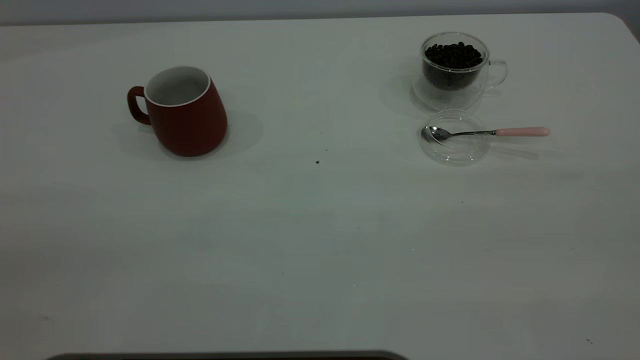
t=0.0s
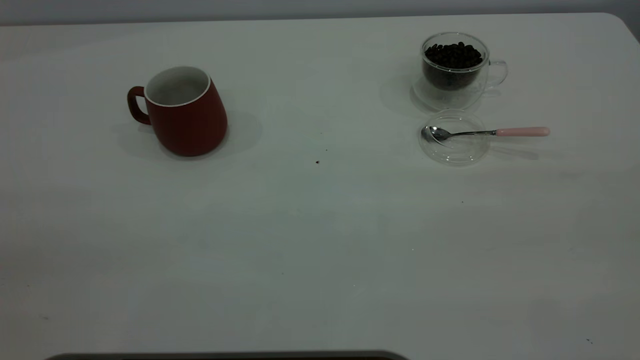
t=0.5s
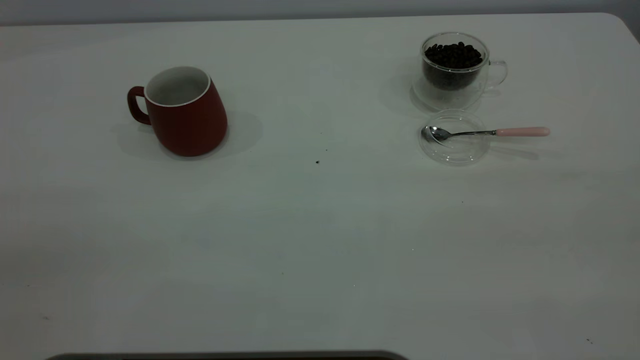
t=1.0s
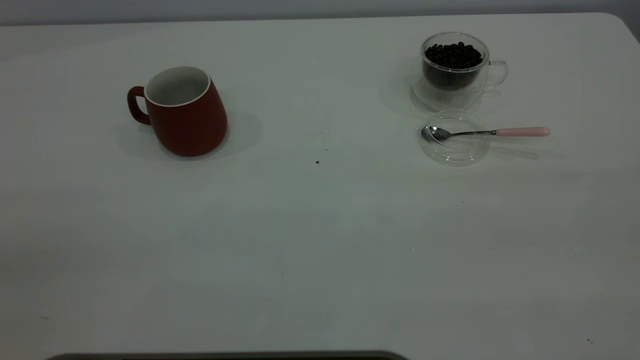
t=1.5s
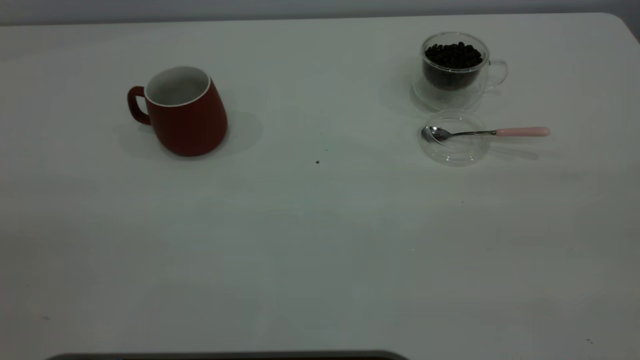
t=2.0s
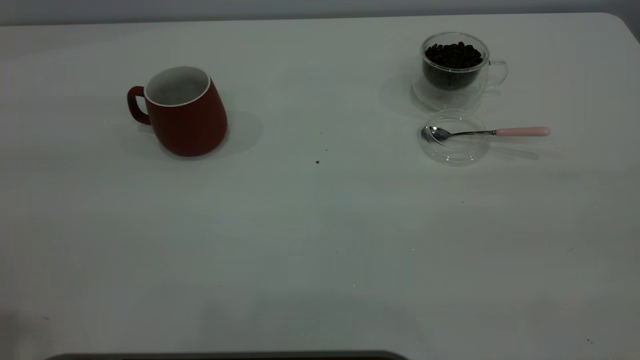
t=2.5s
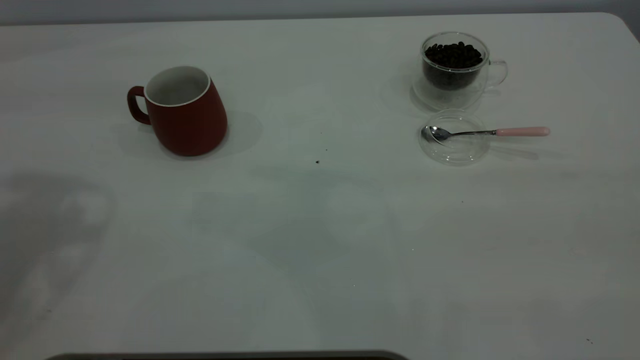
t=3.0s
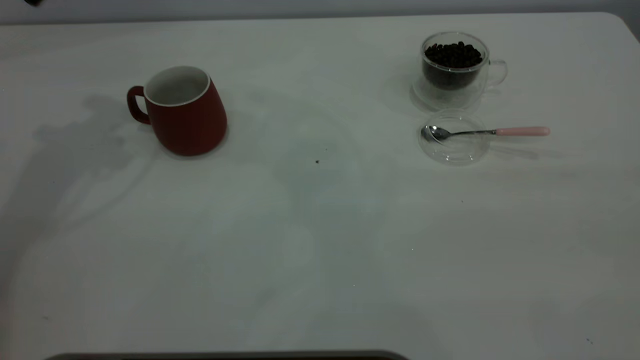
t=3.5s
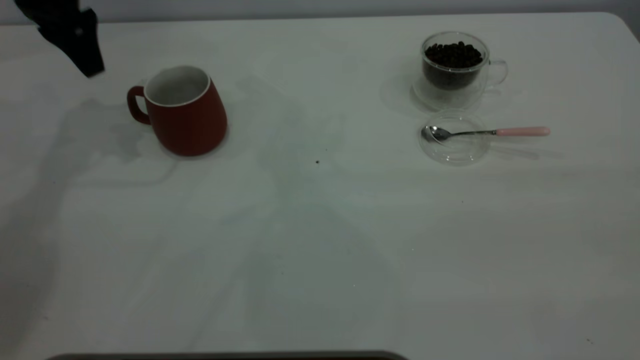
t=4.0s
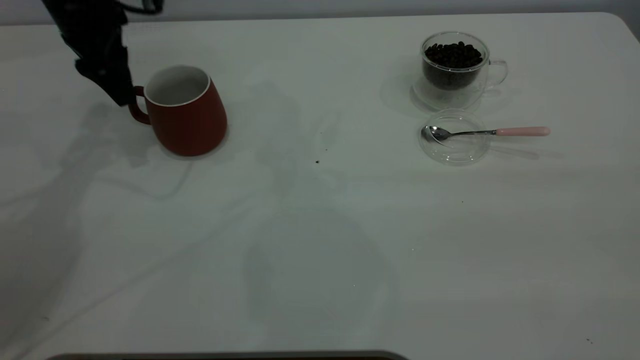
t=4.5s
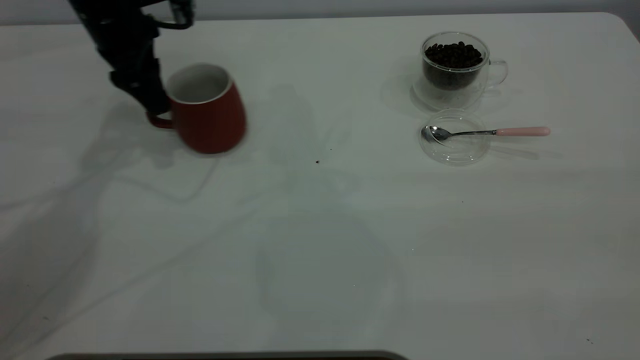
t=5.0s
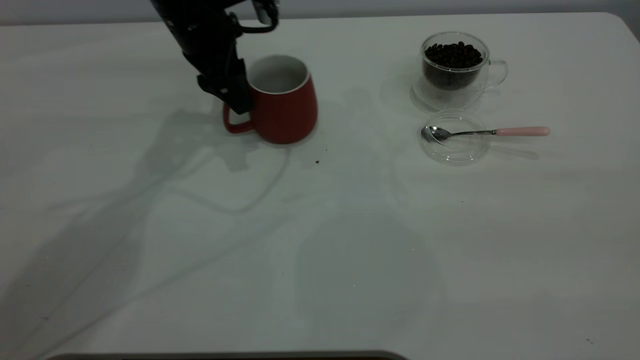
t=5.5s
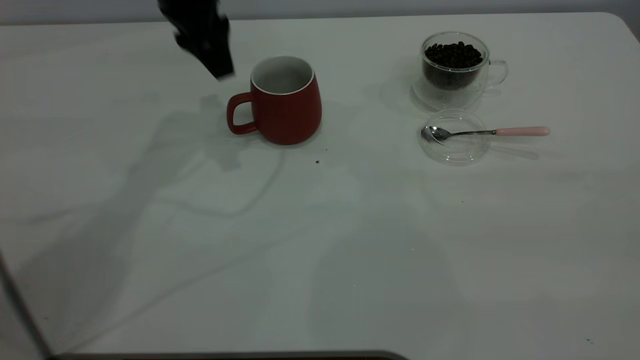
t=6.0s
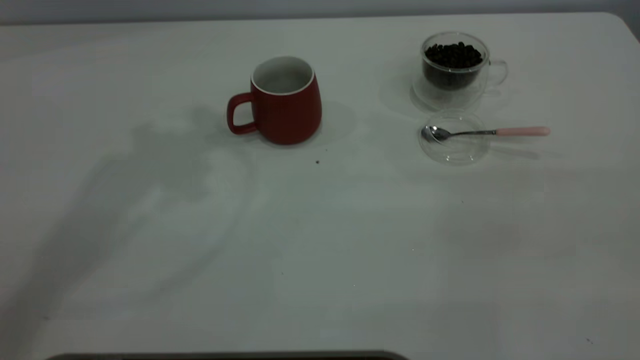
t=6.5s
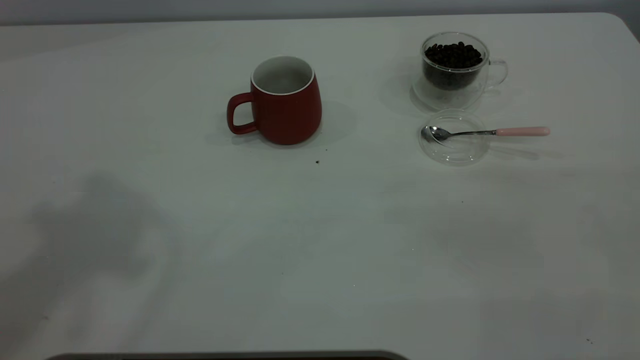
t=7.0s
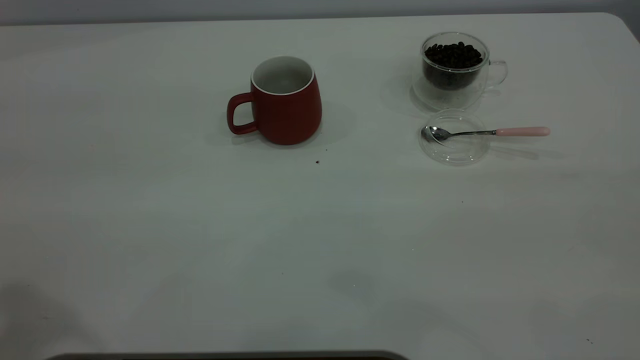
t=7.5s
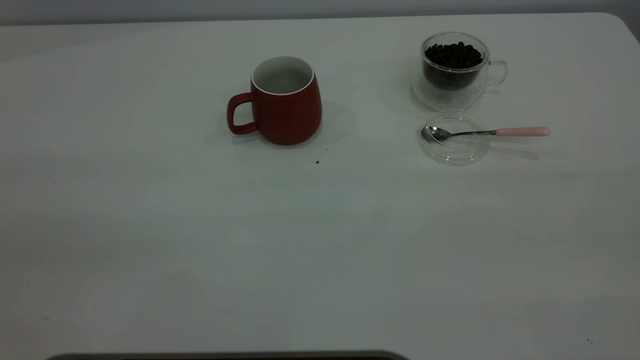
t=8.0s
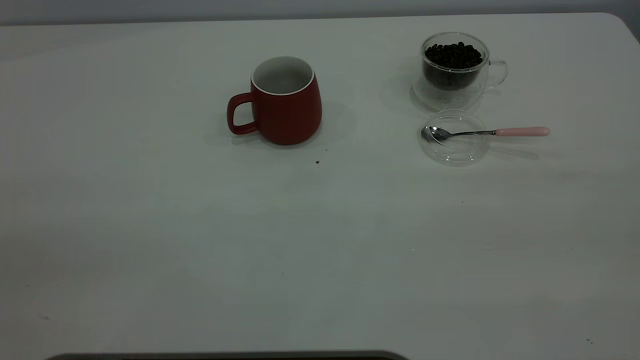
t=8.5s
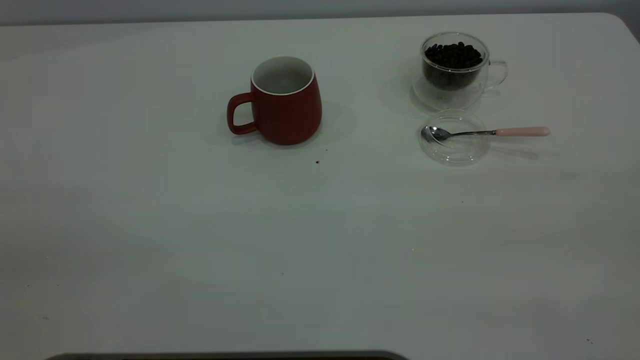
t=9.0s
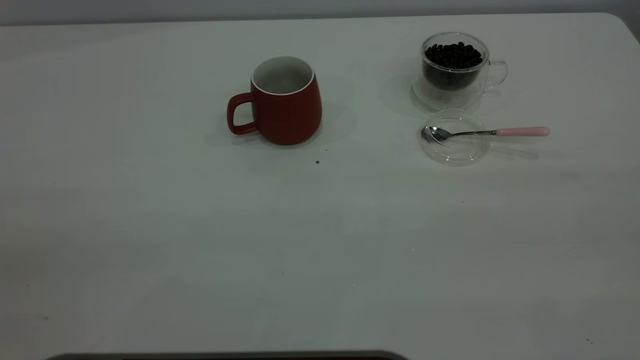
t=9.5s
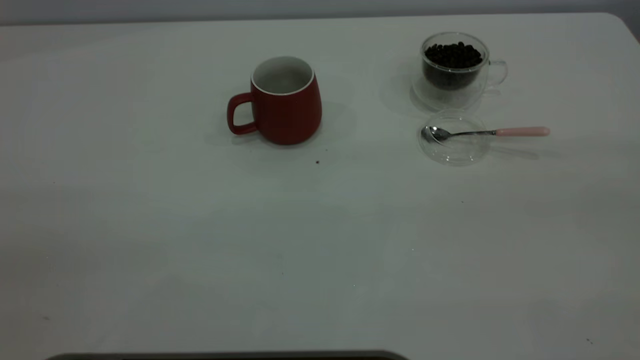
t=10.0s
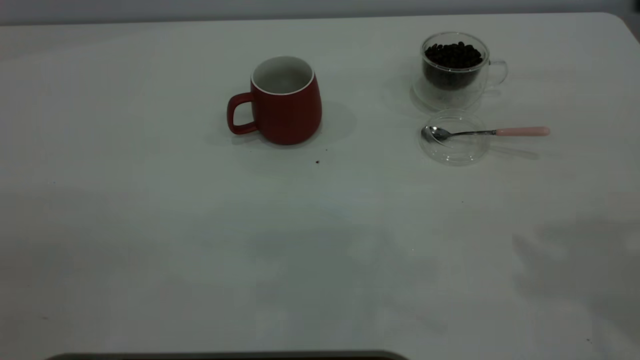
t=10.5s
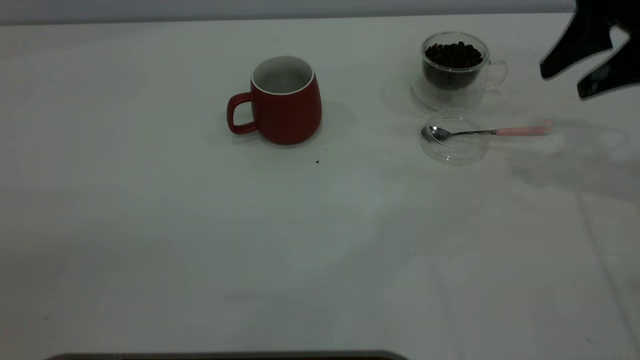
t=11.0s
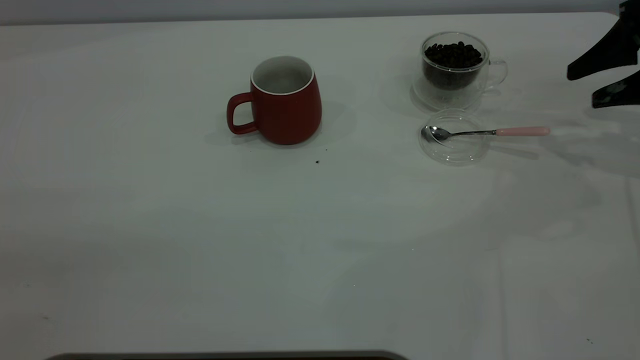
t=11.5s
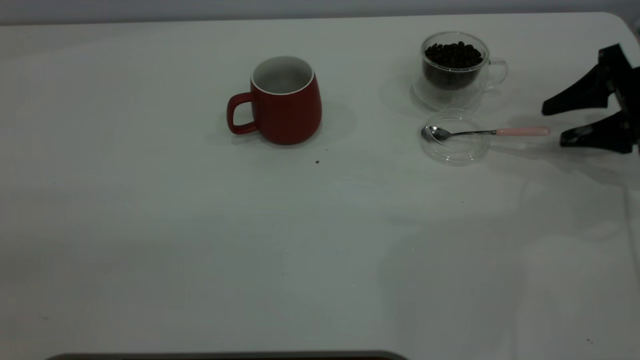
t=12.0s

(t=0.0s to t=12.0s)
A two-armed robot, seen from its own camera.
Task of the whole recording: the left gripper place the red cup in the center of the table, the right gripper take the pink spoon from the cup lid and scoop out the coffee beans from the coffee cup and put them into the red cup, the right gripper put the spoon back into the cup lid.
Step, t=0.0s - t=5.5s: Move the cup to the center of view.
t=2.0s - t=4.0s: The left gripper travels forward and downward by roughly 50 cm.
t=4.0s - t=6.0s: The left gripper heads to the right, covering roughly 15 cm.
t=6.0s - t=8.0s: The left gripper shifts some 40 cm backward.
t=10.0s - t=12.0s: The right gripper goes approximately 40 cm forward and downward.

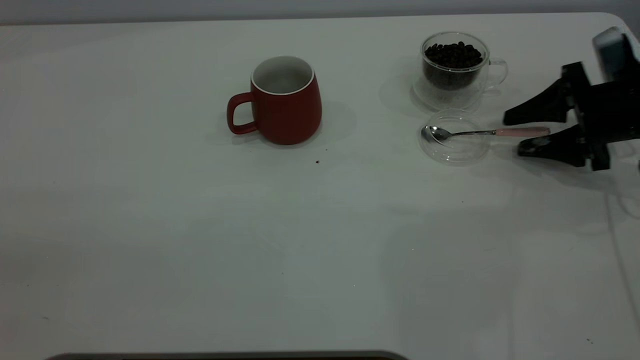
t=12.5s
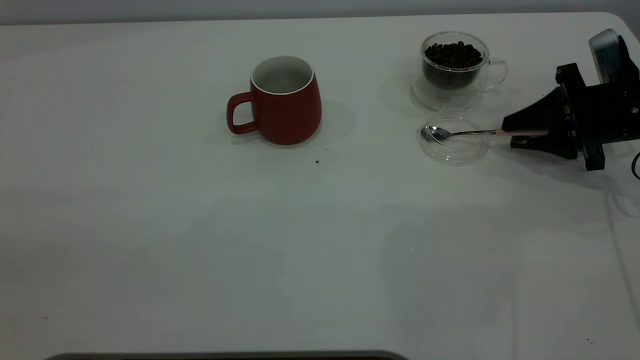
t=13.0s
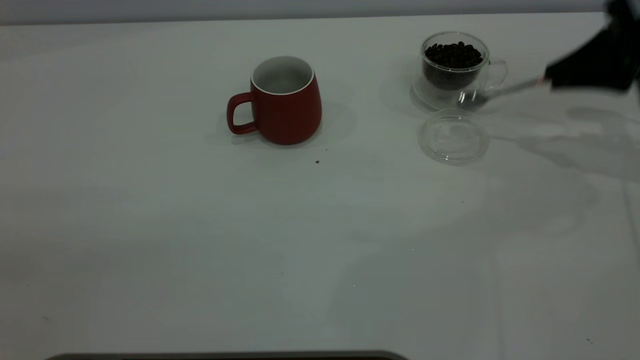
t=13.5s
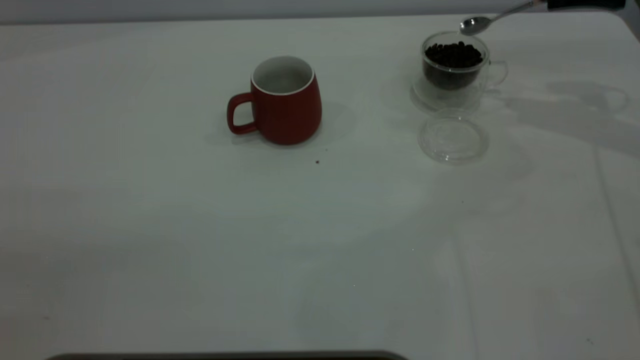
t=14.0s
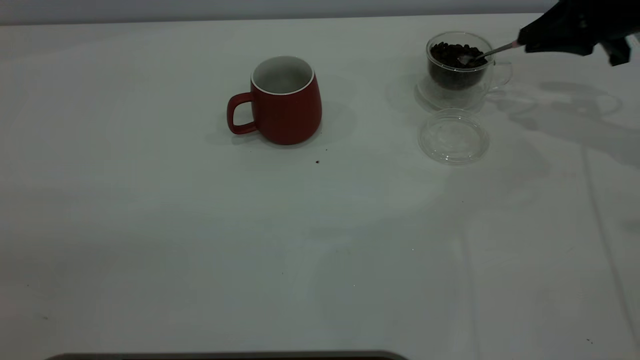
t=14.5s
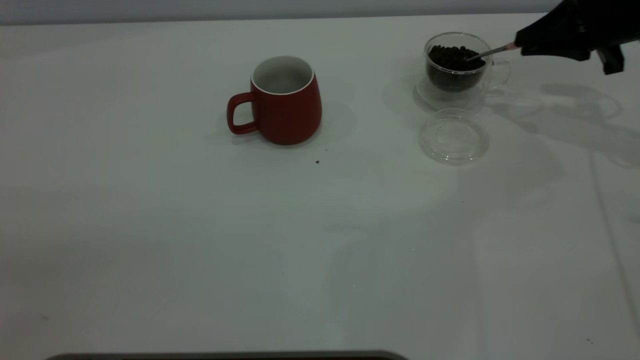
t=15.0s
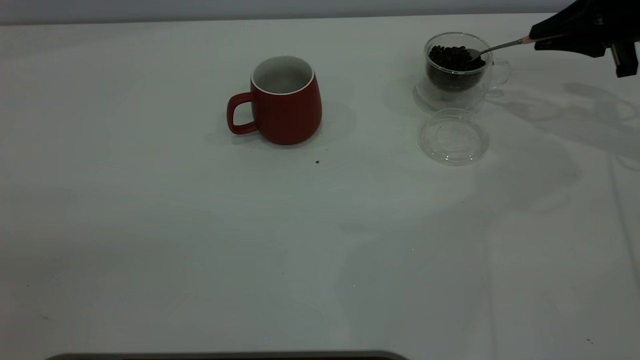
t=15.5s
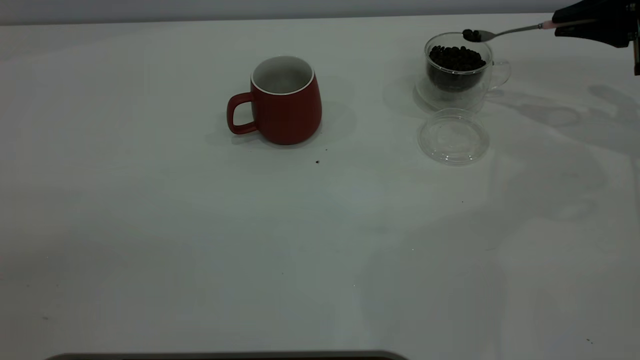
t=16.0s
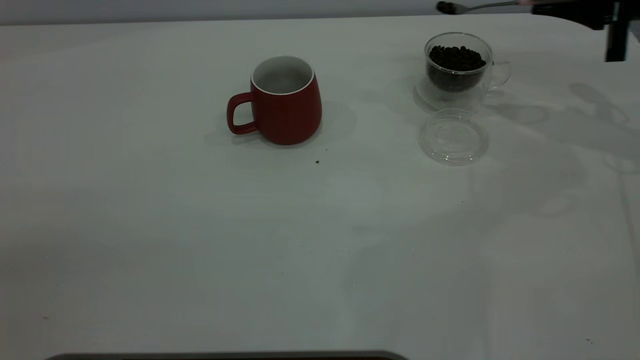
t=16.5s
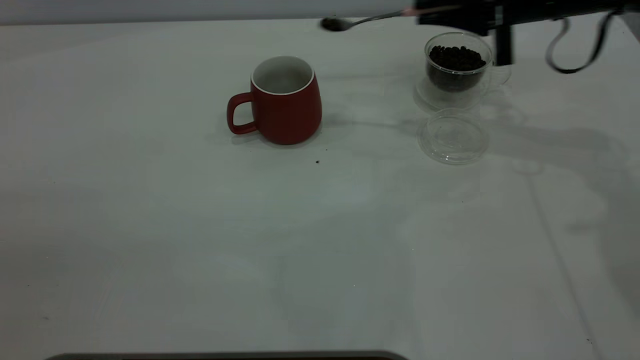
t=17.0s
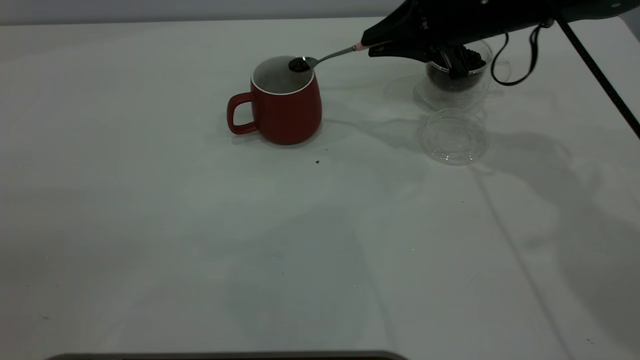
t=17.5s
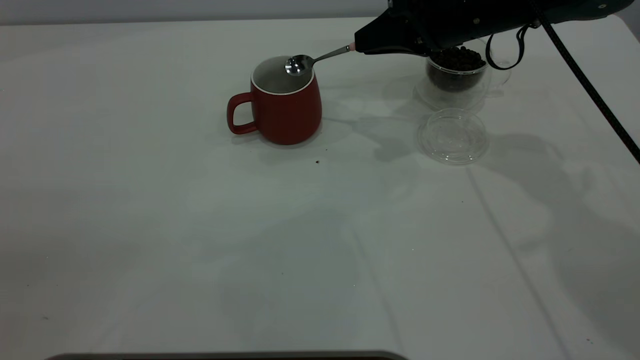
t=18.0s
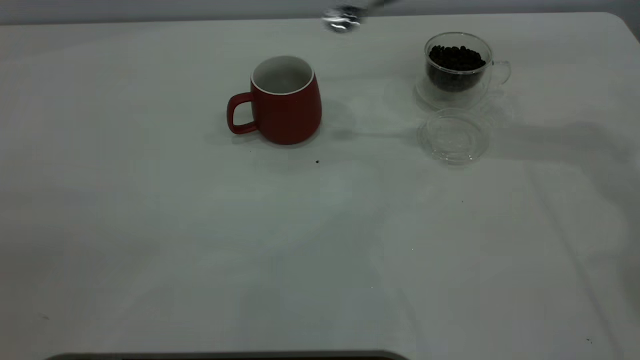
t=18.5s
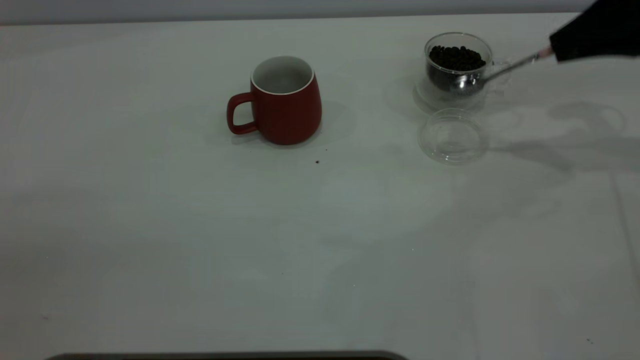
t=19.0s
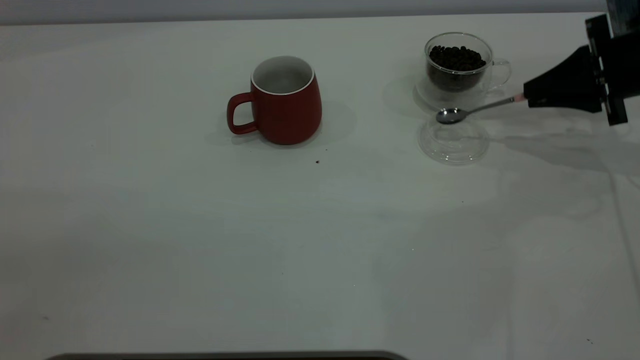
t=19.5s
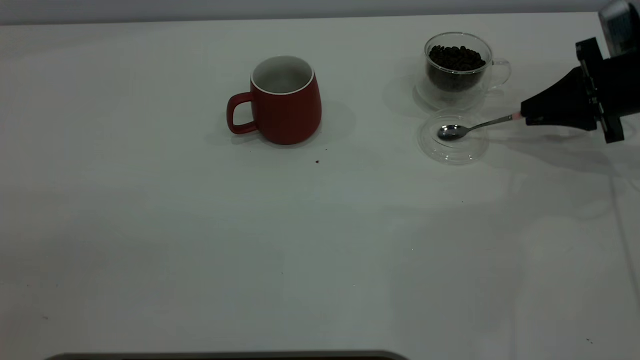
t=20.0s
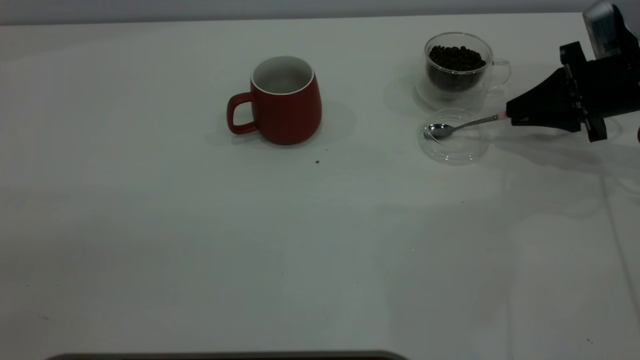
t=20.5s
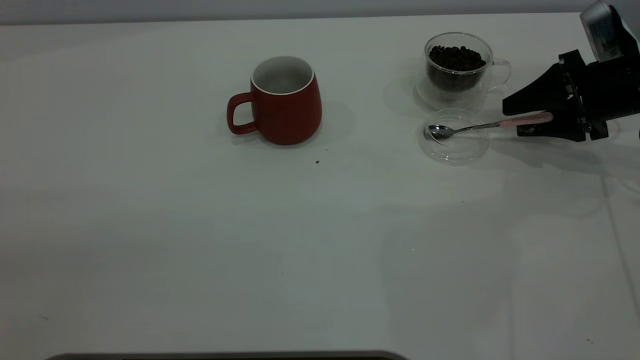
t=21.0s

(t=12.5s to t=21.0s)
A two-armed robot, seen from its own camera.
Task of the whole recording: the left gripper place the red cup in the center of the table, the right gripper take the pink spoon from the cup lid and scoop out the coffee beans from the coffee cup and put them into the red cup, the right gripper put the spoon back into the cup lid.
Step, t=13.5s - t=18.0s: Scoop a spoonful of beans into the cup.
t=12.5s - t=14.5s: The right gripper moves upward and forward, some 10 cm, and closes.
t=16.5s - t=19.0s: The right gripper goes to the left and returns, some 20 cm each way.
t=19.0s - t=21.0s: The right gripper shifts approximately 10 cm downward, and opens up.
